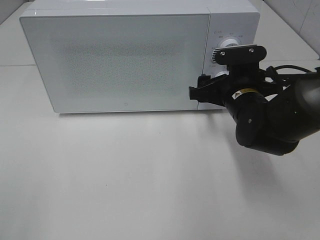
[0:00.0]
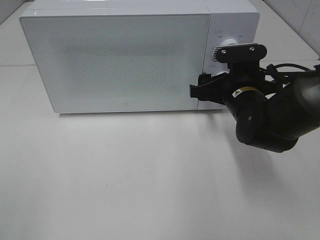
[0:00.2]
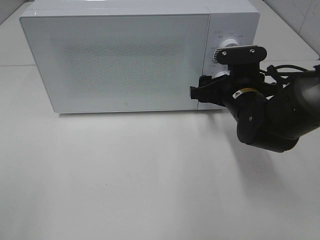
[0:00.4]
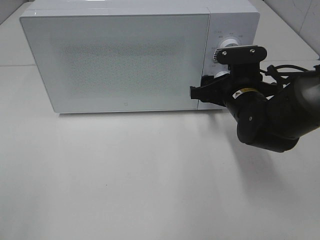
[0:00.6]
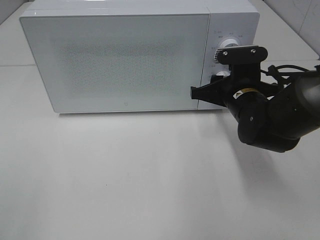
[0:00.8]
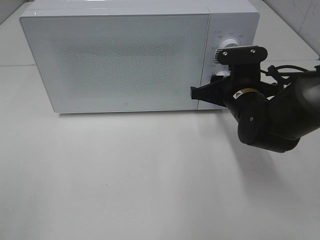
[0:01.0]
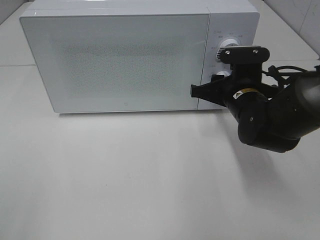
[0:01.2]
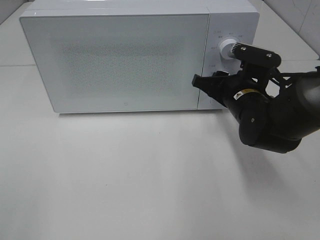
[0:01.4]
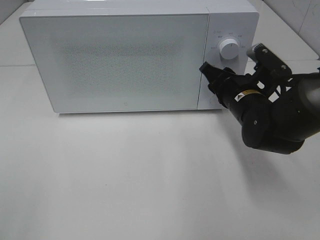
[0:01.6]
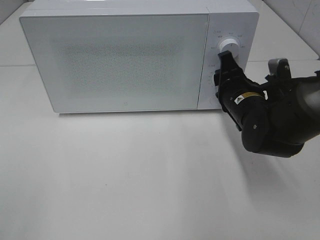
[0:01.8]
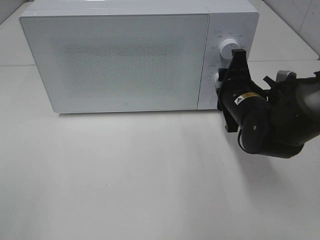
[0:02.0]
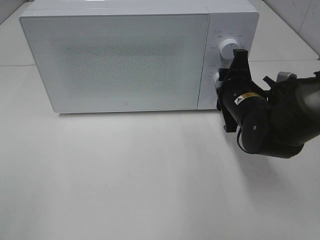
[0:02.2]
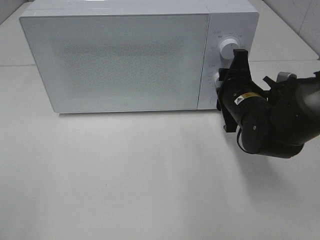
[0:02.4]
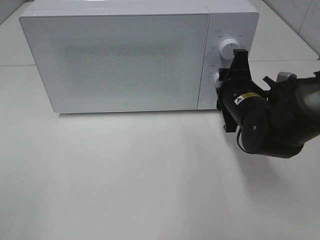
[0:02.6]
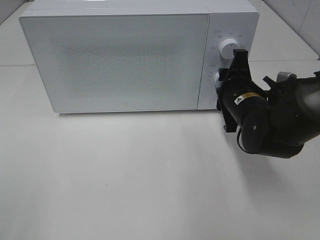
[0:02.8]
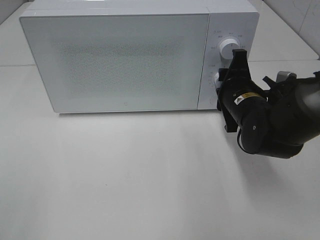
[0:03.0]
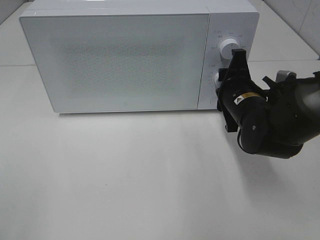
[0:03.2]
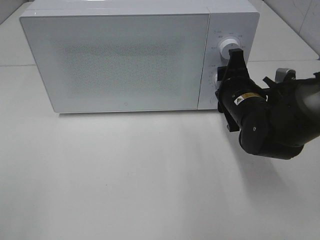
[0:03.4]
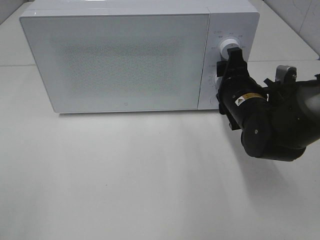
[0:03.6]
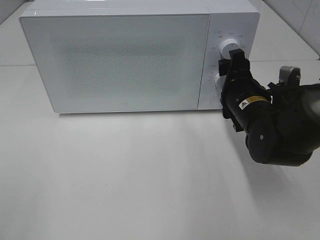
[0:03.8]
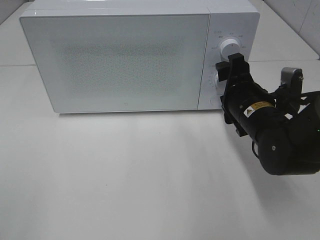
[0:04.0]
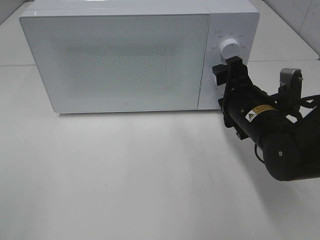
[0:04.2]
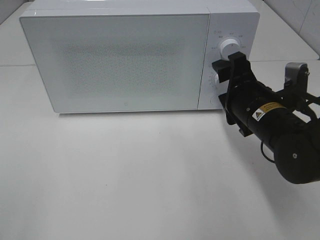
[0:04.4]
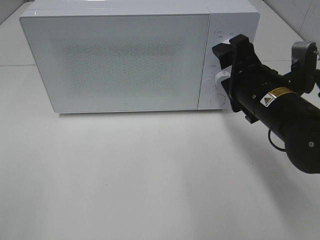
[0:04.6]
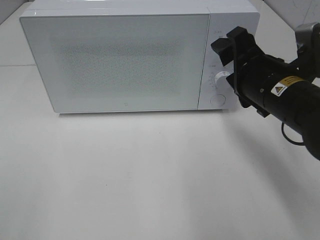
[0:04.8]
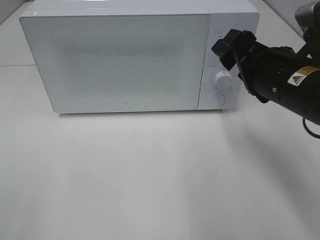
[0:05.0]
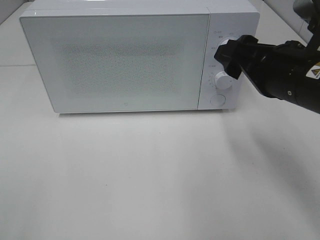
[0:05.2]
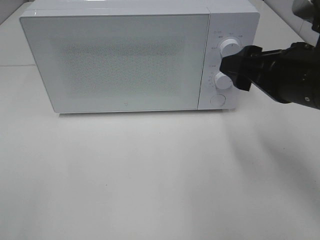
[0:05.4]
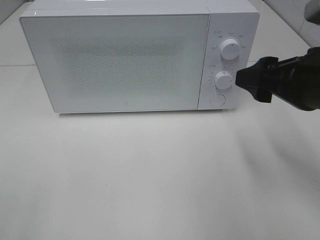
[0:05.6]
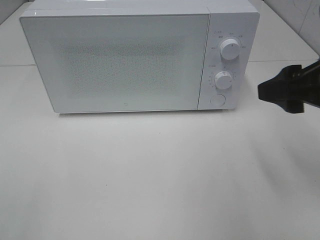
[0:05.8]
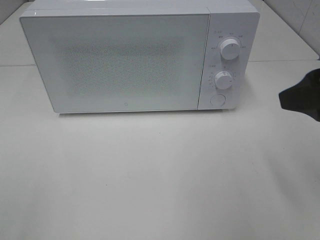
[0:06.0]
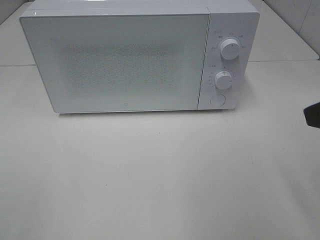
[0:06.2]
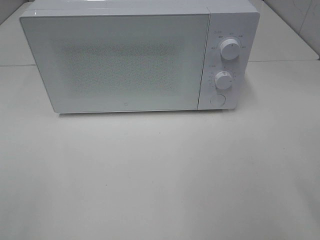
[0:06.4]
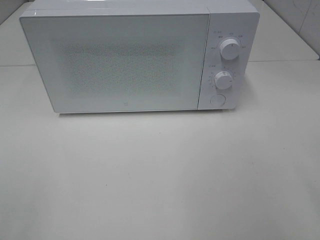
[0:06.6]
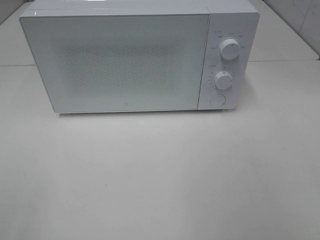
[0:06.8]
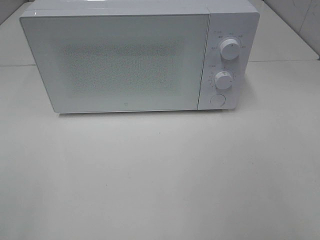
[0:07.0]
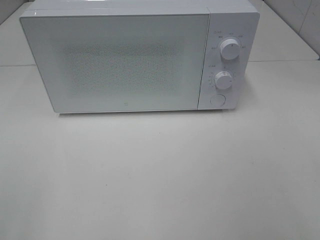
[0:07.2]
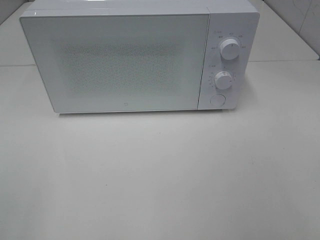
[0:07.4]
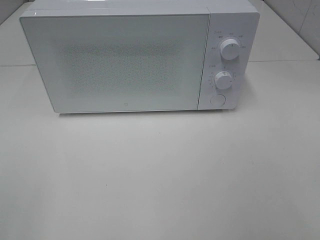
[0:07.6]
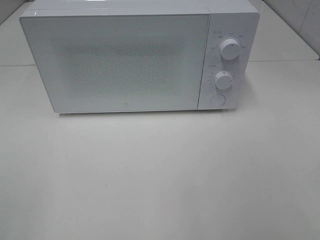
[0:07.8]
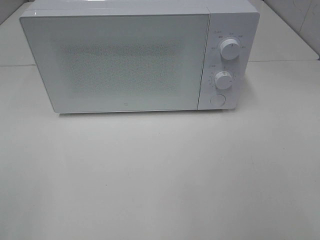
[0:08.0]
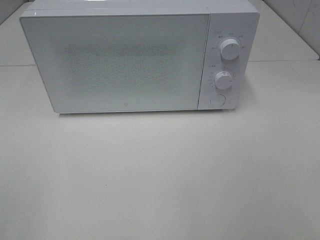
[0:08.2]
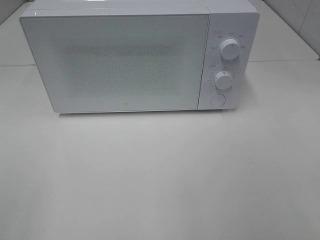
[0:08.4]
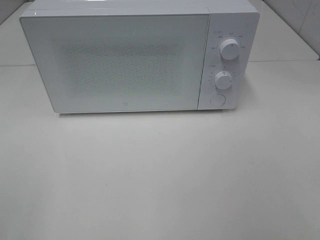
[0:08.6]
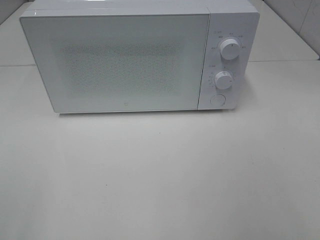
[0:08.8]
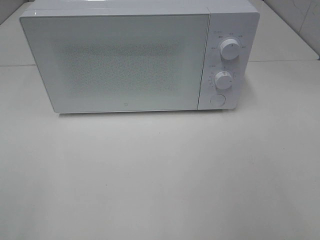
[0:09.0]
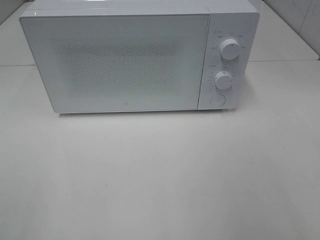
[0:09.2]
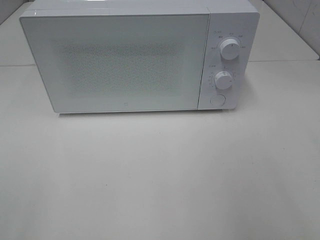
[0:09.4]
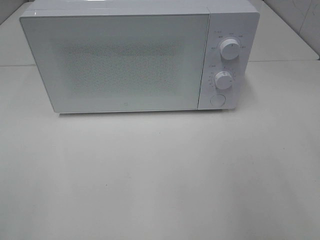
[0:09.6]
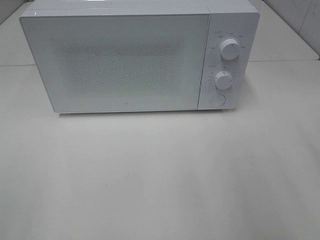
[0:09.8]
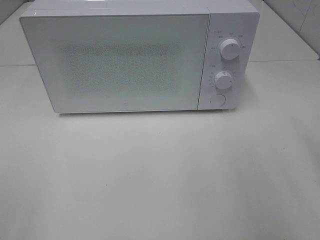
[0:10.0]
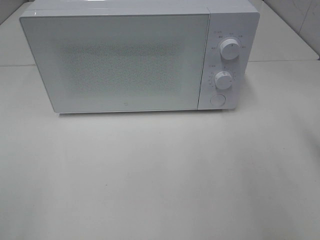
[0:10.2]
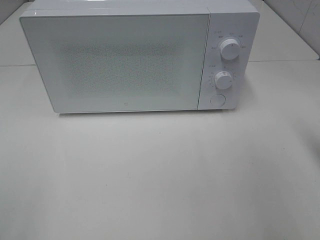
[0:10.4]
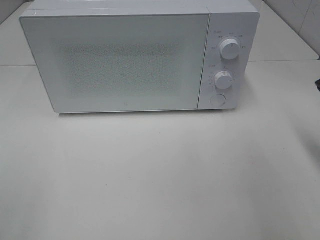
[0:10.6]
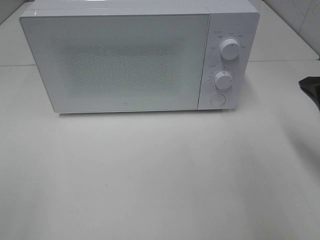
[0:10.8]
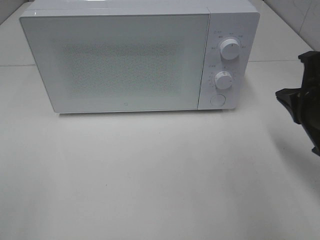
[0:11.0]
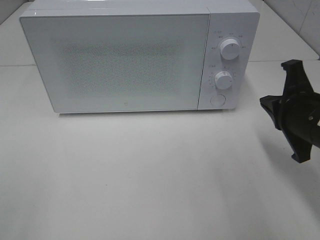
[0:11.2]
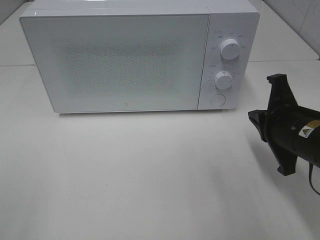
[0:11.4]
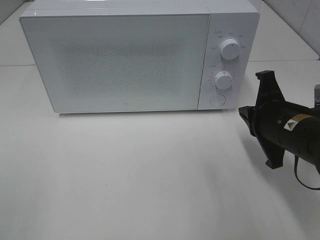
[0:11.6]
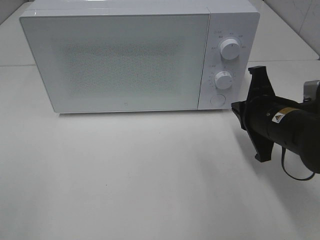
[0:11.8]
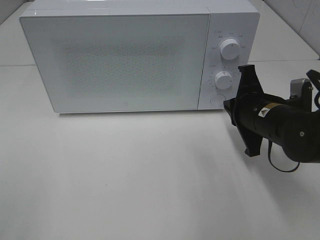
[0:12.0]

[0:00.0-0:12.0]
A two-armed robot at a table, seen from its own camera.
Task of the whole recording: Heat the burger.
Step, 0:00.0 to 0:03.4: Right hand: twist timer button.
0:00.0 to 0:01.6: The right gripper closes its fingers.
0:03.0 to 0:04.4: The right gripper moves about 5 cm.
0:04.4 to 0:06.0: The right gripper moves upward, backward and to the right, approximately 20 cm.
0:06.0 to 0:07.6: The right gripper heads backward, covering about 15 cm.
0:10.4 to 0:12.0: The right gripper moves to the left, downward and forward, some 15 cm.

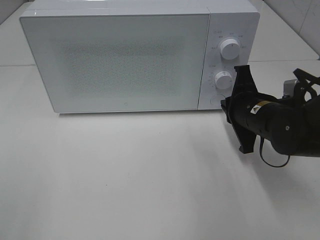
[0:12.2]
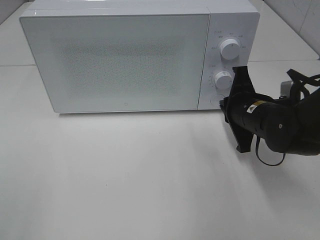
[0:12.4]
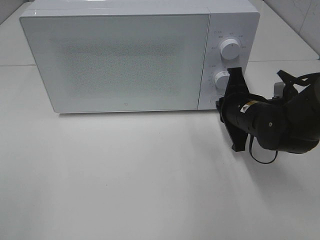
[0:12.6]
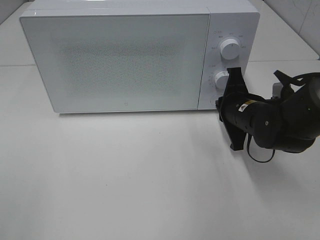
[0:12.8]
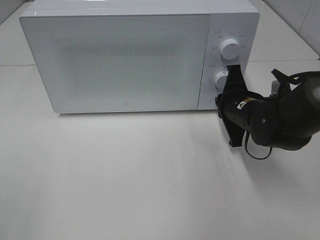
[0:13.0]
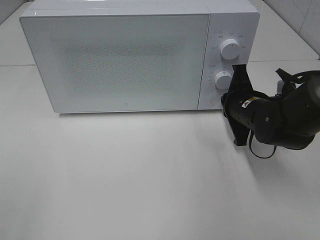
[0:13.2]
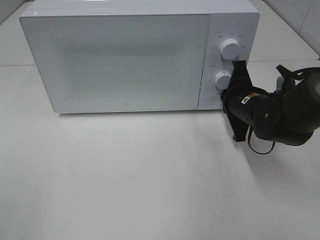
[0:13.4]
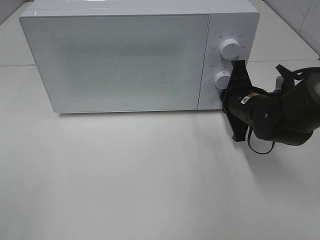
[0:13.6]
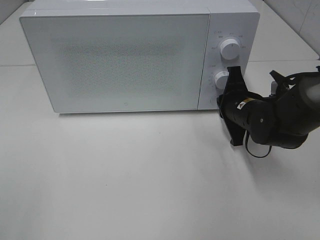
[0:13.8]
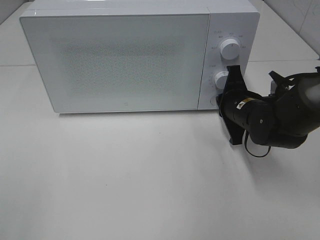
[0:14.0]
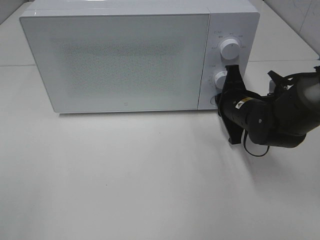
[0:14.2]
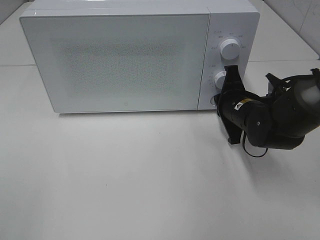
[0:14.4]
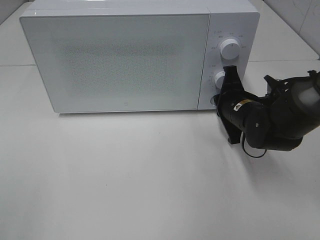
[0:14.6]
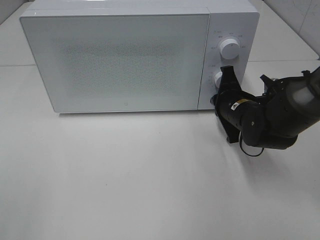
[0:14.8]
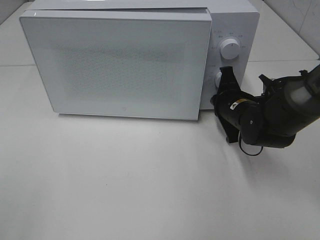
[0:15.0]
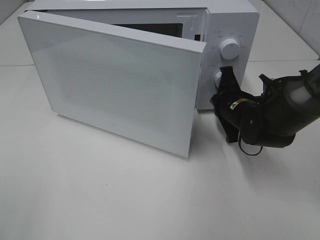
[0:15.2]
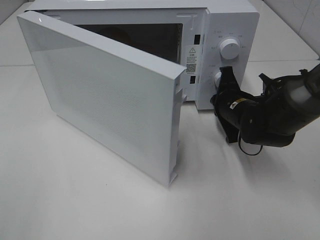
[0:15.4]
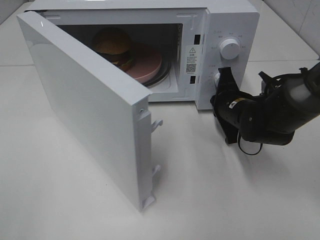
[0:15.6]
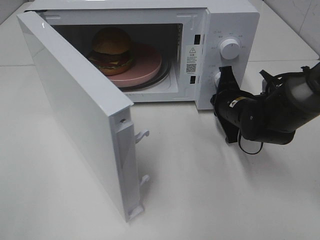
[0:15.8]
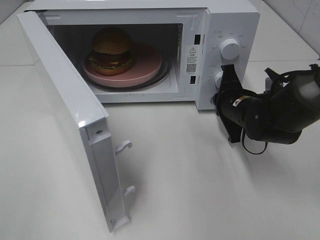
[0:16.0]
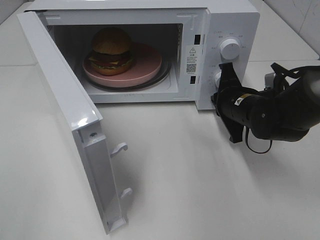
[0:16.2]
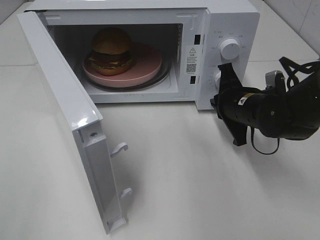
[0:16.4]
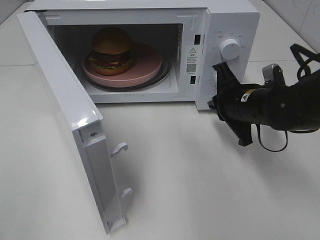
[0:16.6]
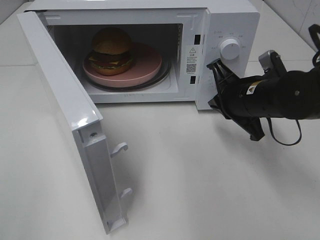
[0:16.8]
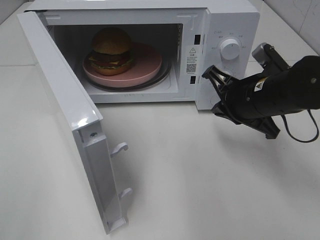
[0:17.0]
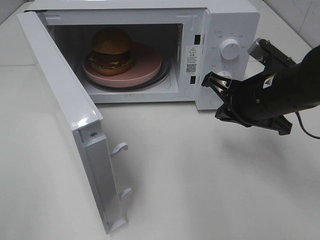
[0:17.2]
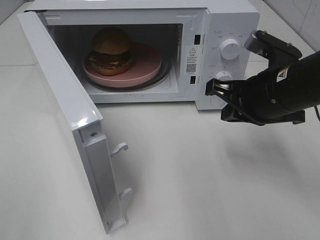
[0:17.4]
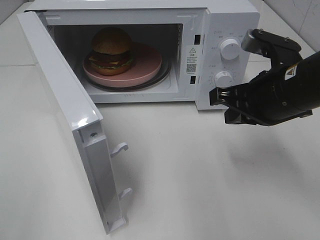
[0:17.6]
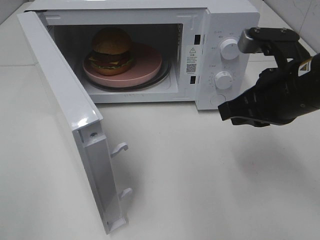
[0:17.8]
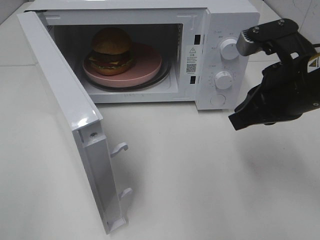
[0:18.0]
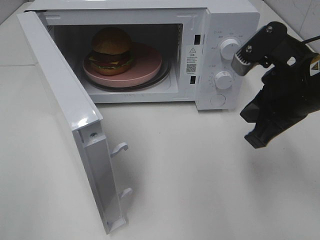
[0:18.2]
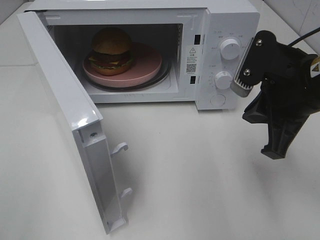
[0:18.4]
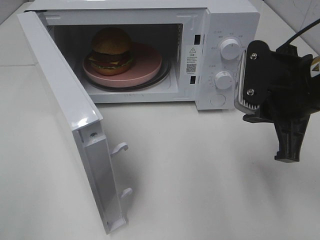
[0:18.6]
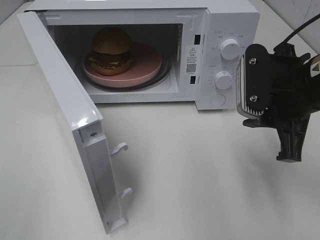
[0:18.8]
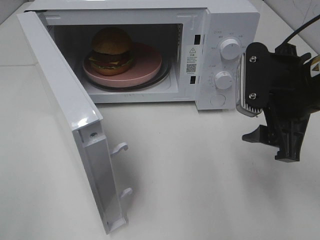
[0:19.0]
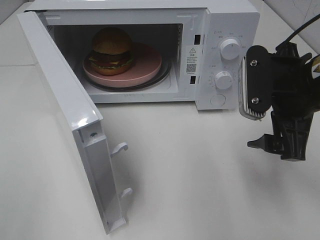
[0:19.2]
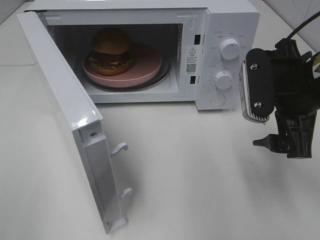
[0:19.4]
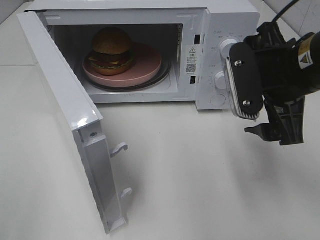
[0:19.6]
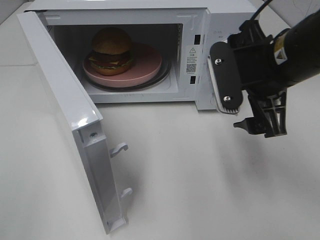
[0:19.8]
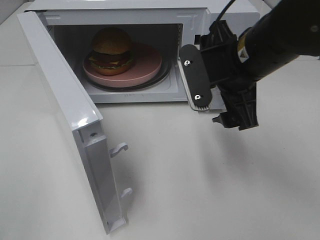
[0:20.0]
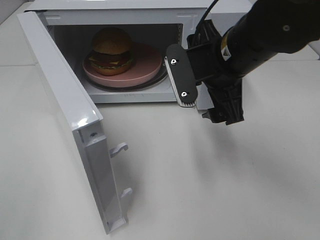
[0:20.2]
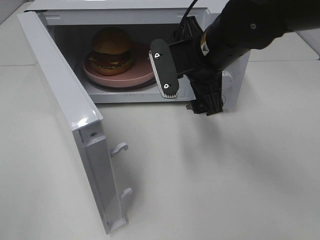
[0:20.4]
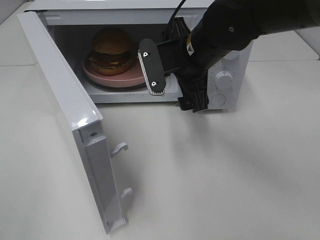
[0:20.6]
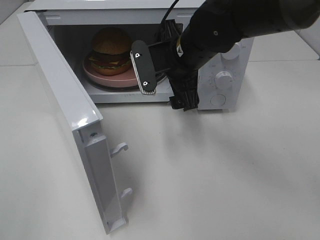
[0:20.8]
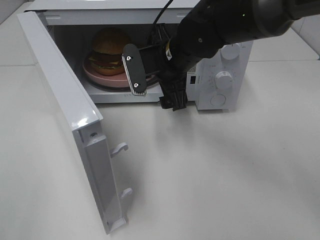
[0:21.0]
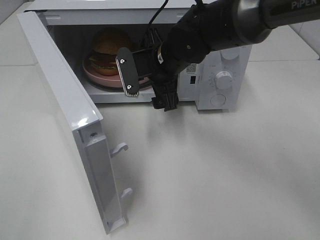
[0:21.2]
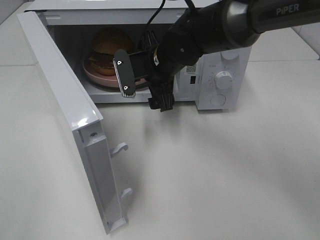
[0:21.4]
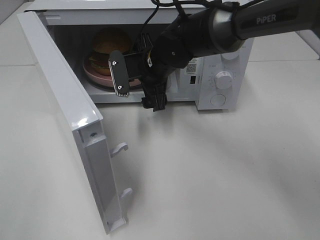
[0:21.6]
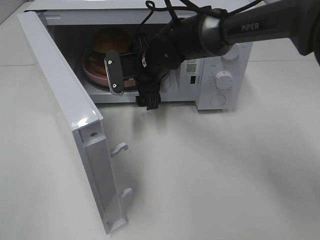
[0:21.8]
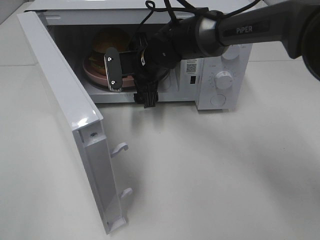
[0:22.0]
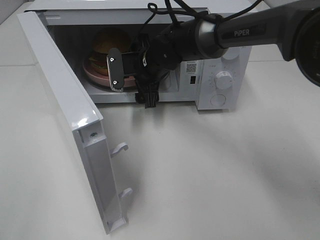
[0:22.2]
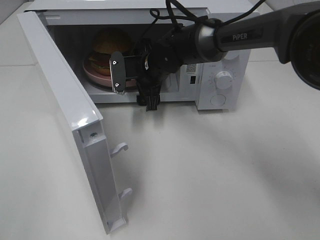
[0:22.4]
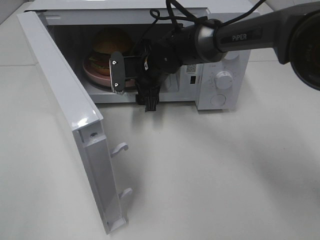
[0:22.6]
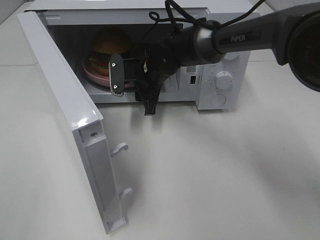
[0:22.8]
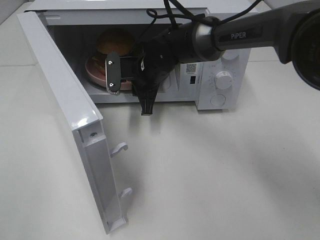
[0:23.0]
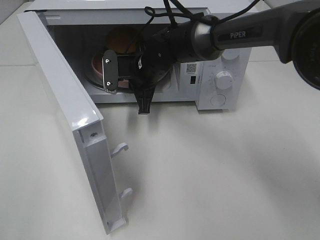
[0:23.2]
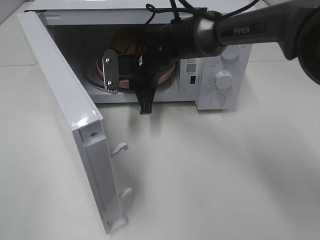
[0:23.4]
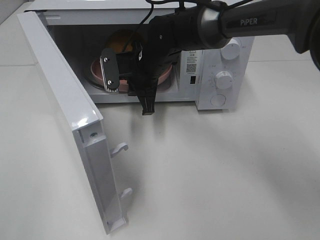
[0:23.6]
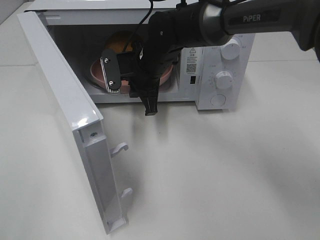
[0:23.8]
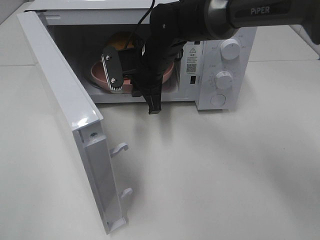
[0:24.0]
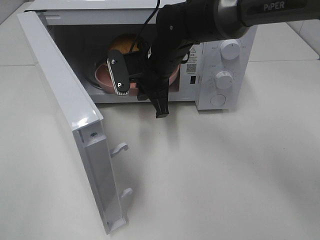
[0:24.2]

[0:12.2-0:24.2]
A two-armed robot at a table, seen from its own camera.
Task of the whole recording: Heat the burger.
Step, 0:12.2 to 0:16.2: Right hand: press the switch.
Step, 0:16.4 to 0:23.0: Right hand: grab the plate with the hamburger.
0:12.2 to 0:13.8: The right gripper moves about 5 cm.
0:13.8 to 0:15.2: The grippers move only a little.
0:15.2 to 0:16.6: The right gripper moves some 5 cm.
0:16.6 to 0:18.2: The right gripper is displaced upward and backward by about 15 cm.
0:18.2 to 0:19.8: The right gripper opens.
0:19.8 to 0:21.2: The right gripper travels to the left, forward and downward by roughly 20 cm.
0:21.2 to 0:22.6: The right gripper moves forward, roughly 5 cm.
0:22.6 to 0:24.2: The right gripper shifts by roughly 5 cm, and closes up.
